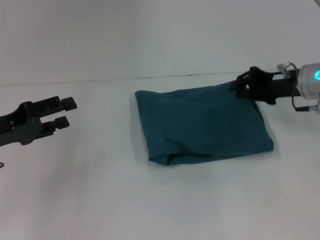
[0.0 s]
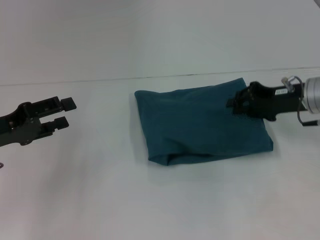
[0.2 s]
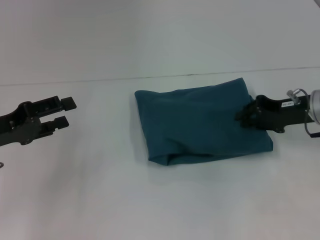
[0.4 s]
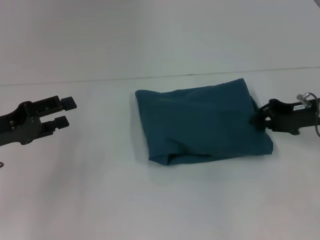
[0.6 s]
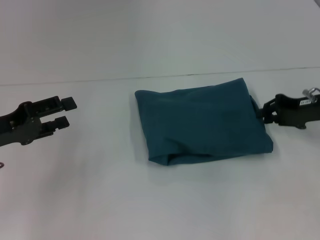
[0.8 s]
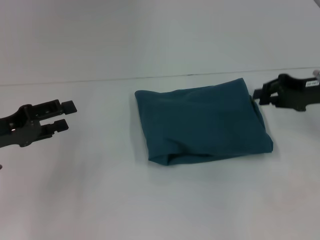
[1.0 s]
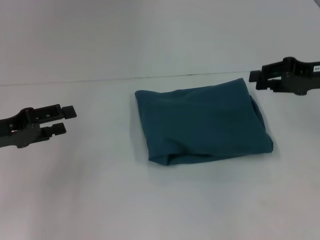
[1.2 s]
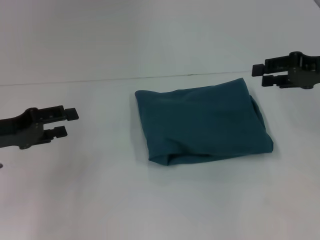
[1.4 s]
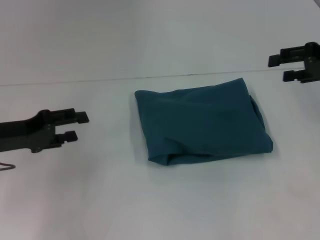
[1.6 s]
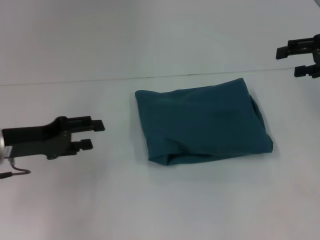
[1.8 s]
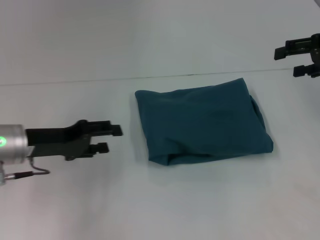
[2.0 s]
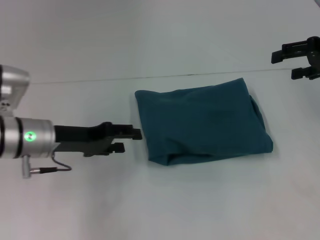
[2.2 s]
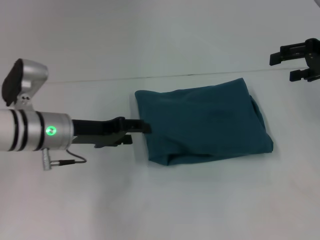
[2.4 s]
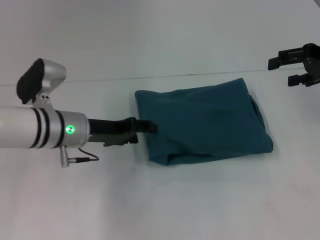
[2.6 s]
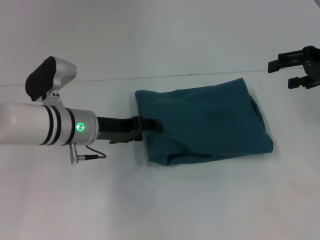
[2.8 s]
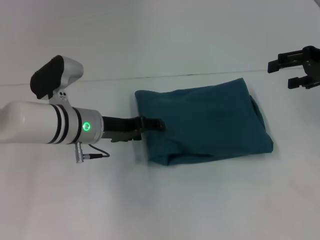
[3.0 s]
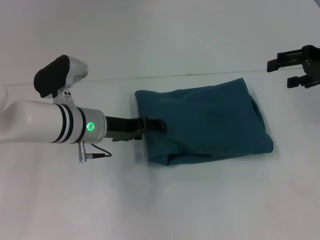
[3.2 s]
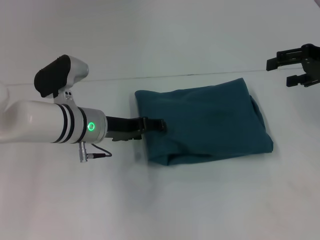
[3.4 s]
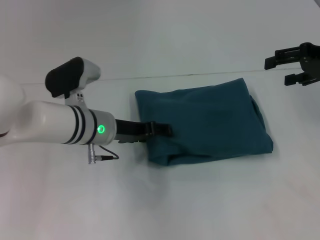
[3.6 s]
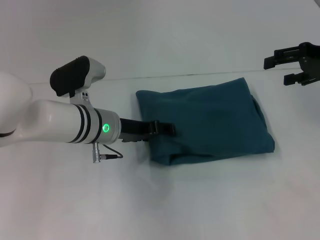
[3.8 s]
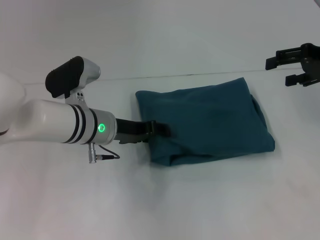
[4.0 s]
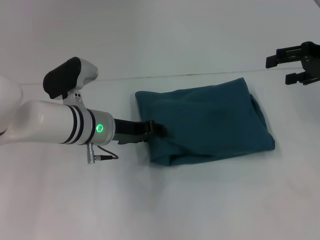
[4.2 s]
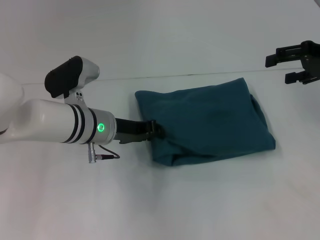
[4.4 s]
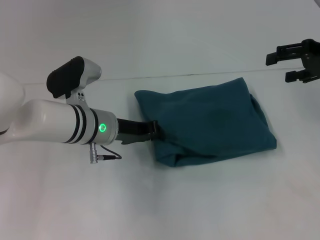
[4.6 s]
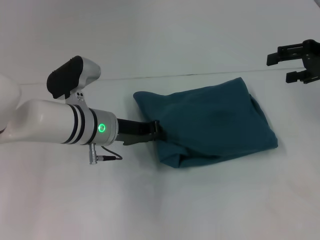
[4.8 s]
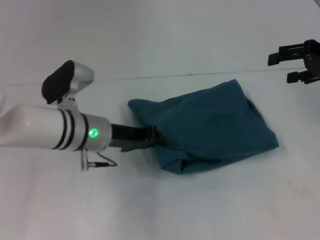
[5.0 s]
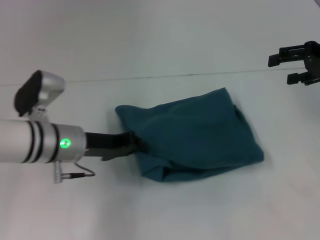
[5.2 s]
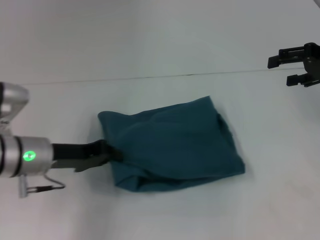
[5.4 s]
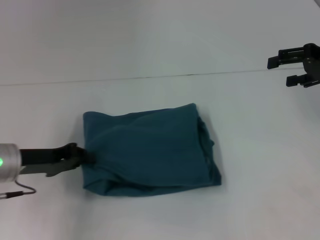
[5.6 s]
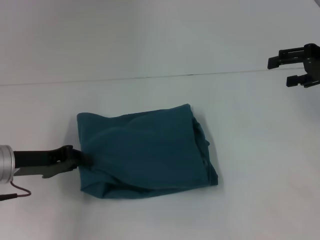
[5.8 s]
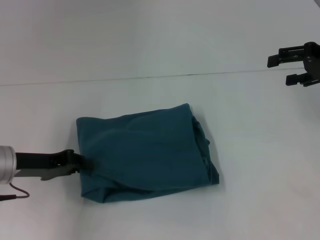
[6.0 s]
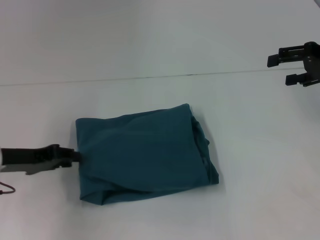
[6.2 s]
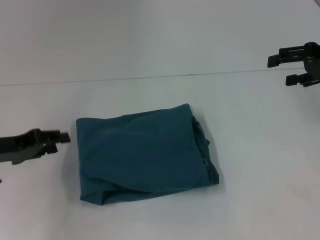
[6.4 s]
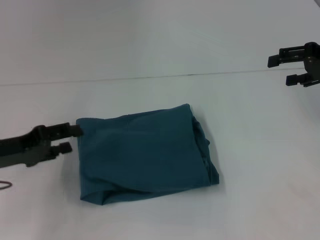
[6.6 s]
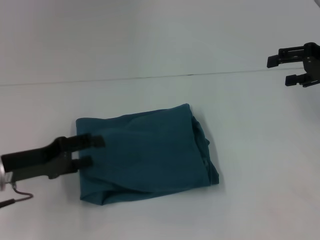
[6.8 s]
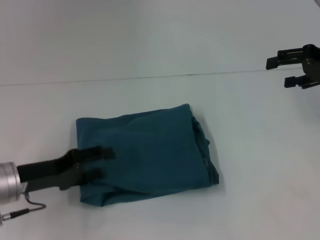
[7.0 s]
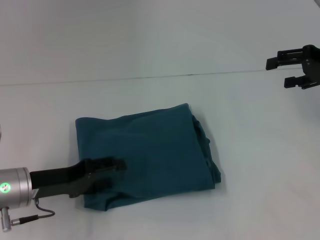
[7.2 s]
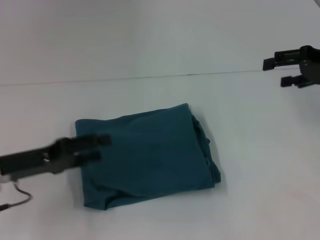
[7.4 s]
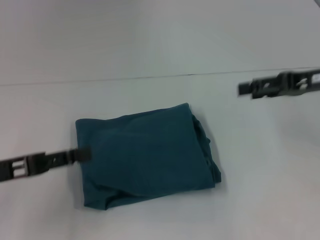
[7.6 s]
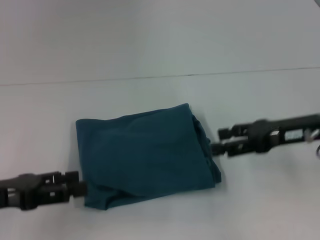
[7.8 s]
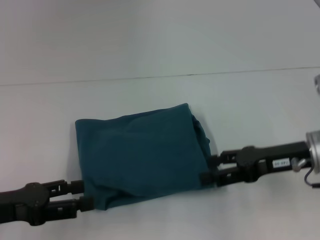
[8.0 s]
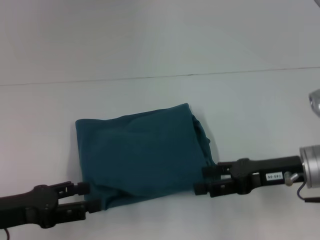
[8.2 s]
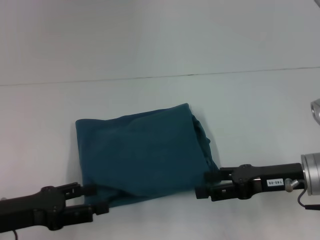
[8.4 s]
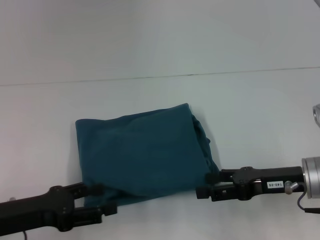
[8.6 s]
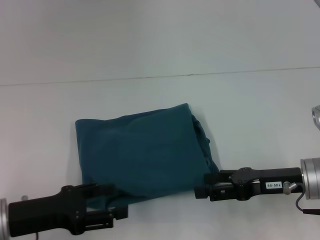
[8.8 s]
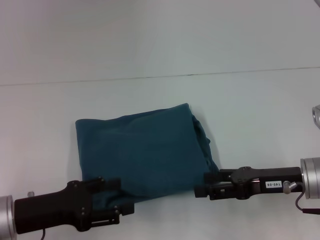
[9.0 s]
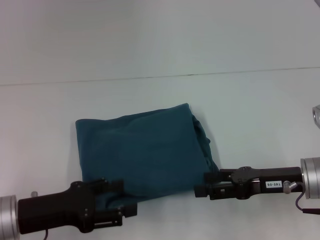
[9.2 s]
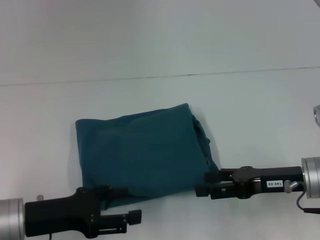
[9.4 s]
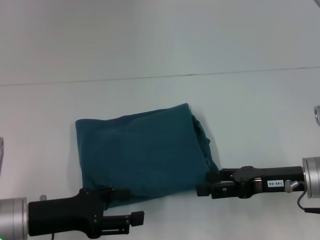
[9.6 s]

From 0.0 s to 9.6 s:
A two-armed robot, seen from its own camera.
From 0.0 s to 1.6 s: The right gripper shifts approximately 10 cm to the right and upward.
From 1.6 s to 3.2 s: The left gripper moves to the right, roughly 15 cm. The right gripper opens its fingers.
From 3.2 s to 4.8 s: The left gripper closes its fingers.
From 4.8 s to 6.4 s: The left gripper travels to the left by about 20 cm.
From 6.4 s to 8.0 s: The right gripper heads downward, to the left and backward, covering about 15 cm. The left gripper is displaced backward by some 5 cm, and opens its fingers.
From 8.0 s to 9.6 s: The left gripper heads to the right, covering about 5 cm.

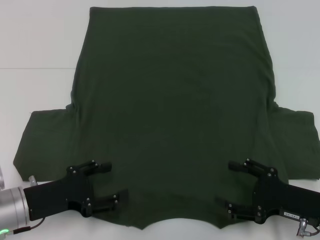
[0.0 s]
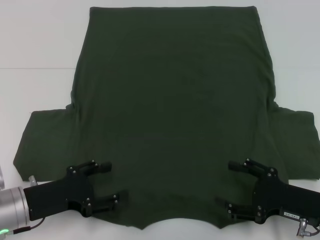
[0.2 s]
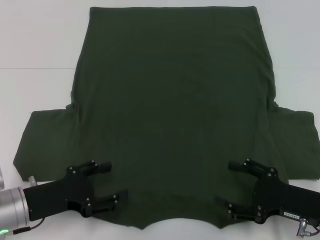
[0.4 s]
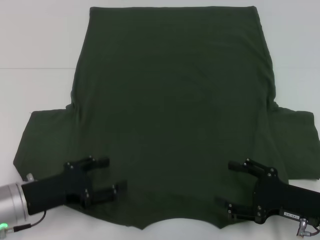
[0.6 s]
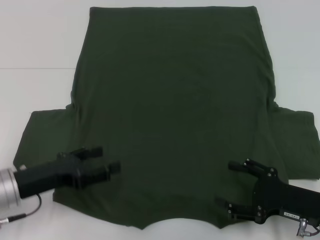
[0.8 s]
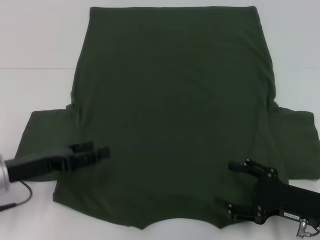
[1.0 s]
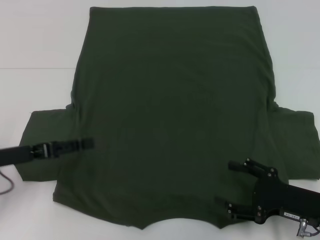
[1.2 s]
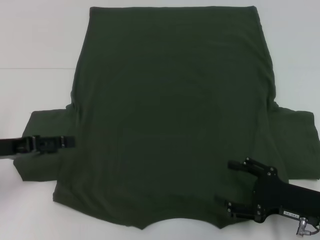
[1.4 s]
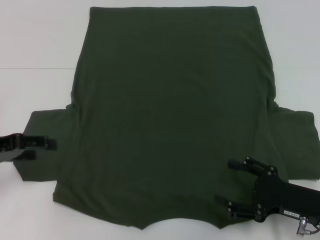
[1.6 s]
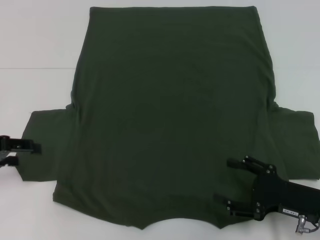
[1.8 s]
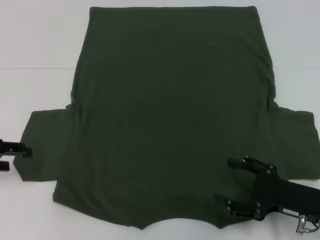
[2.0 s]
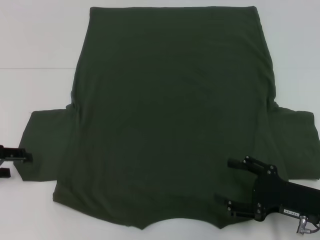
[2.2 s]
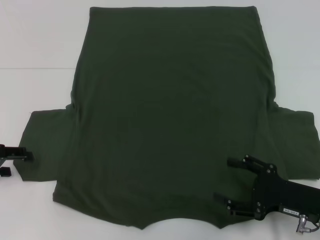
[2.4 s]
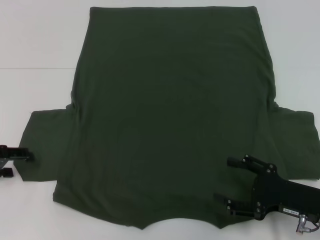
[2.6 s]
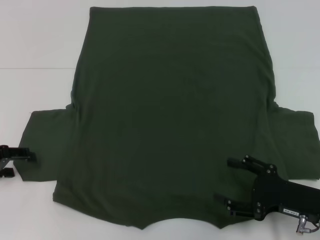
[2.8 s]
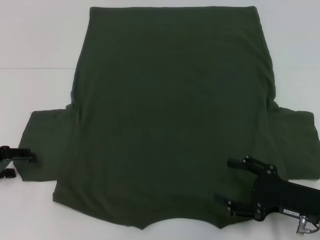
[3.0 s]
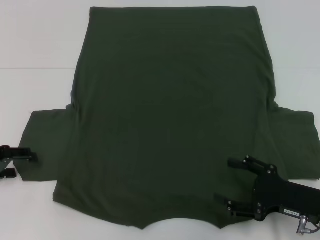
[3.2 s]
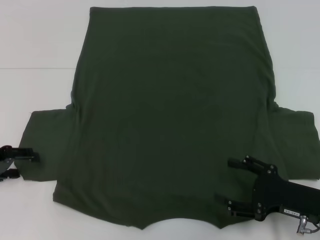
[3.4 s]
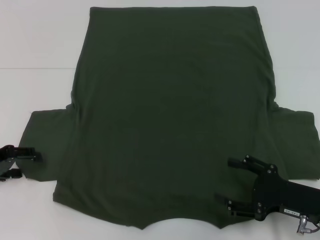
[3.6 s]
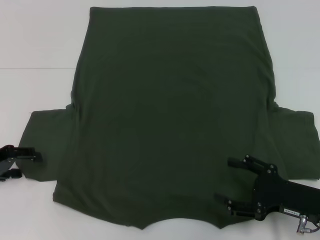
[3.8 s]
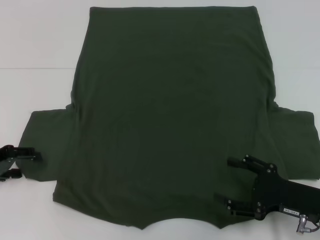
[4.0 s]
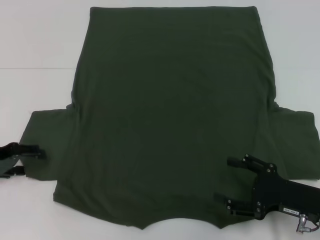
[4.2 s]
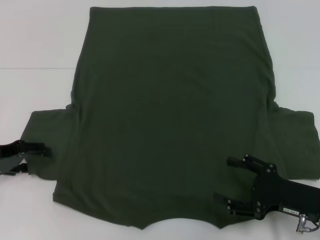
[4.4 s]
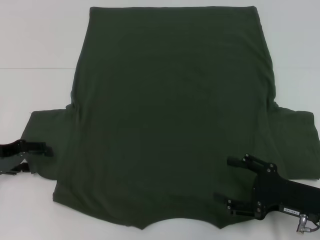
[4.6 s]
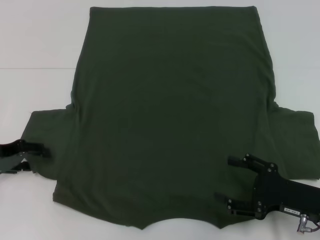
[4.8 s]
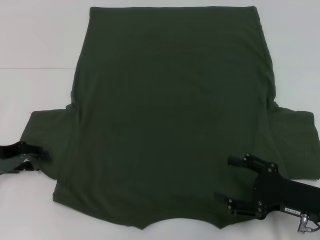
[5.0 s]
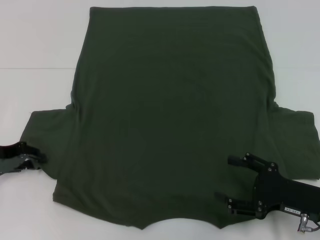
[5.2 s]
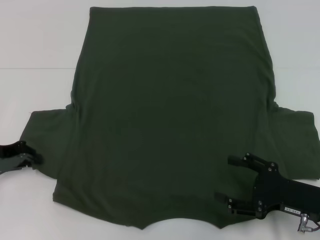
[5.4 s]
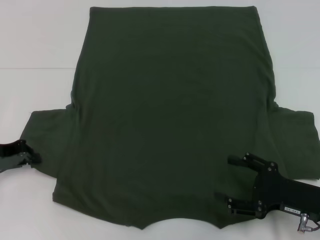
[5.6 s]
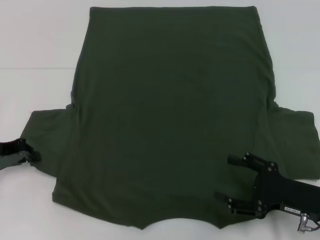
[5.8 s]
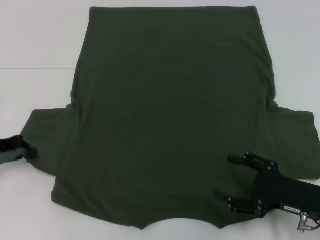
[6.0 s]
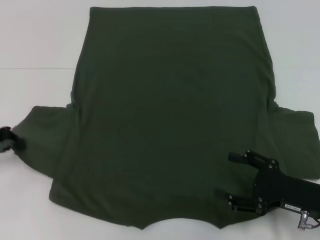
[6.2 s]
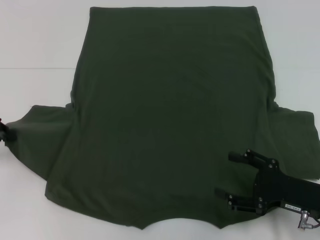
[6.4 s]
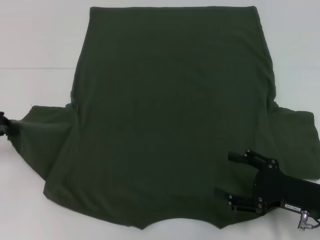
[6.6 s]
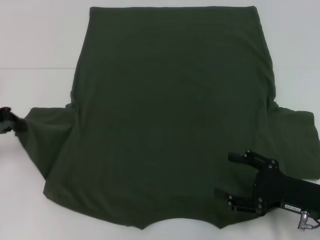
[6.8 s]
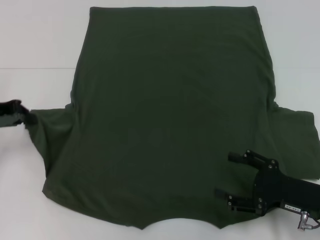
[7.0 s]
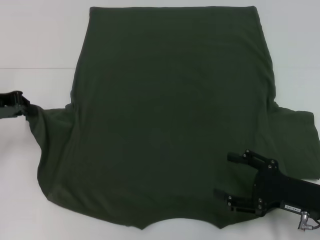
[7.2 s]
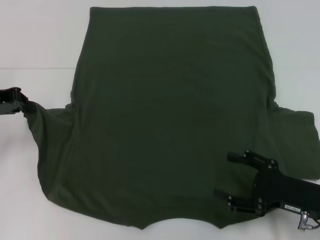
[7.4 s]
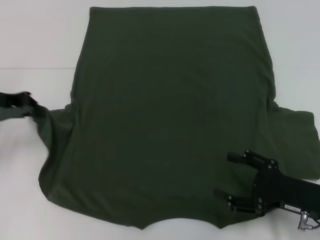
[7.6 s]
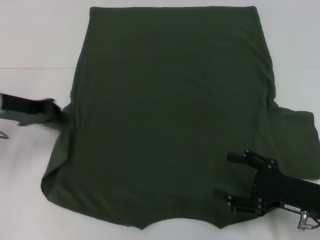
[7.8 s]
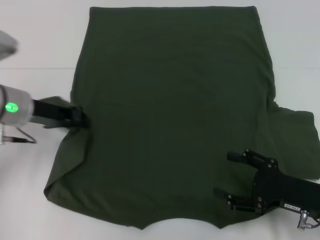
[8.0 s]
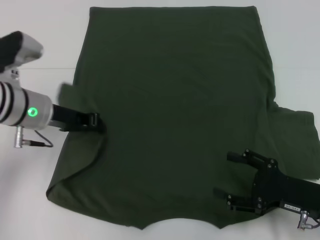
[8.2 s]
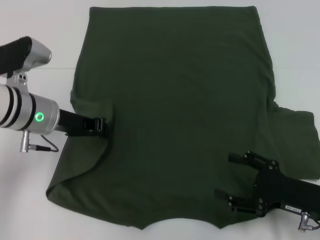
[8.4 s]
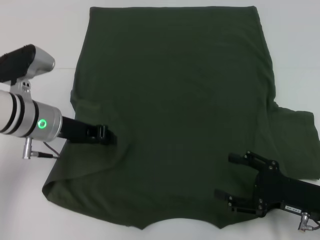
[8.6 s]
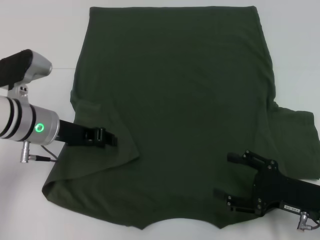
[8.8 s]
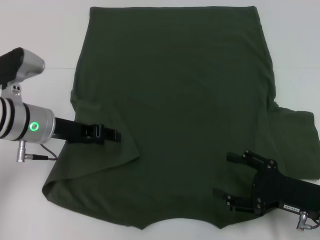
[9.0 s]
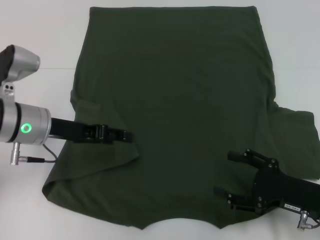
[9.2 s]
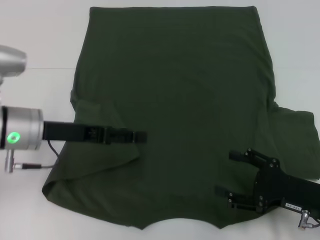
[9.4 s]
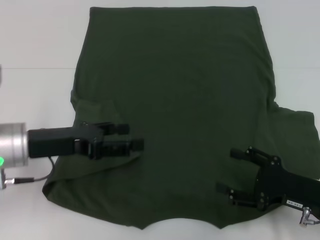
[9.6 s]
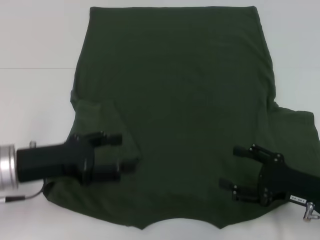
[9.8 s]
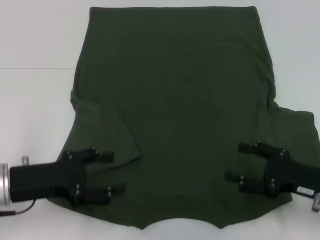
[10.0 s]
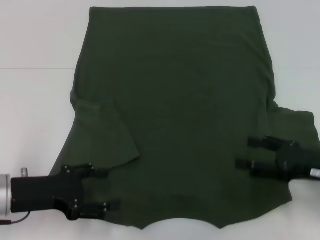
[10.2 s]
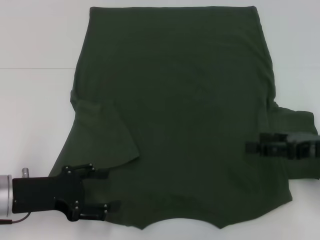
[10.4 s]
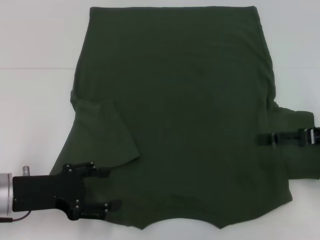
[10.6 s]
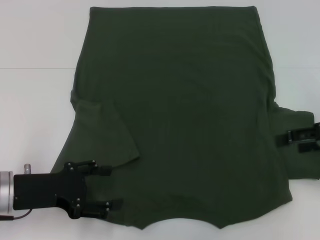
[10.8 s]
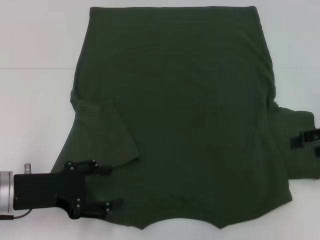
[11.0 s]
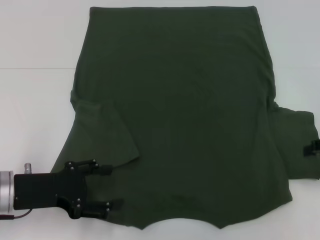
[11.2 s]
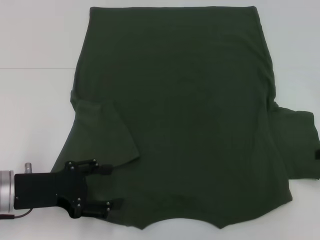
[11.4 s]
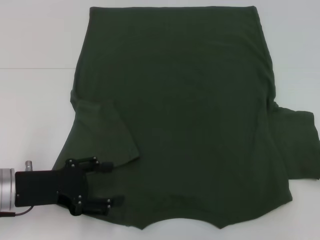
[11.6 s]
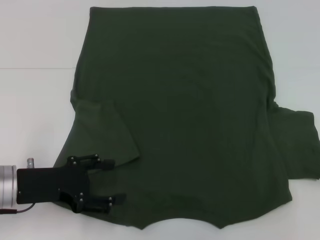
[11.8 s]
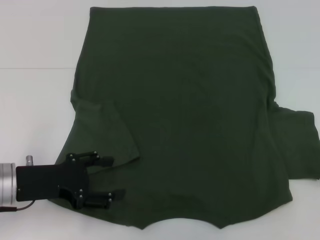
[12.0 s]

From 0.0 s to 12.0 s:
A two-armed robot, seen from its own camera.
Step, from 0.0 s to 8.6 s: Fold the bottom left sleeve with your left hand.
From 0.0 s to 1.6 s: The left gripper shifts about 15 cm upward, to the left and forward.
From 1.6 s to 4.4 s: The grippers make only small movements.
From 4.4 s to 6.0 s: The left gripper closes its fingers.
From 6.0 s to 7.6 s: The left gripper moves upward, about 5 cm.
From 7.6 s to 9.0 s: The left gripper shifts about 10 cm to the right.
From 9.0 s to 10.4 s: The right gripper shifts about 10 cm upward and forward; the left gripper shifts about 10 cm backward, and opens its fingers.
From 10.4 s to 12.0 s: The right gripper heads to the right and backward, covering roughly 10 cm.

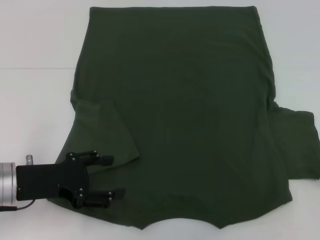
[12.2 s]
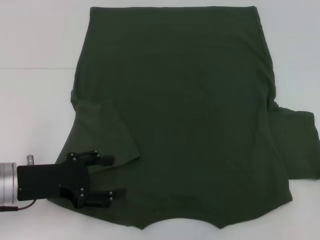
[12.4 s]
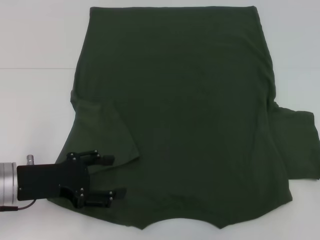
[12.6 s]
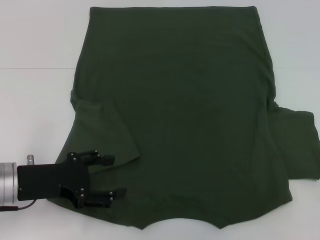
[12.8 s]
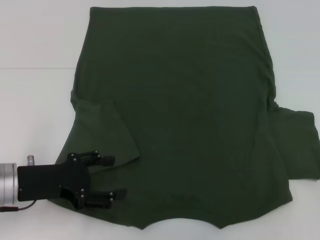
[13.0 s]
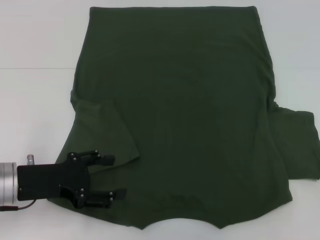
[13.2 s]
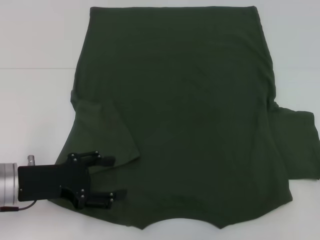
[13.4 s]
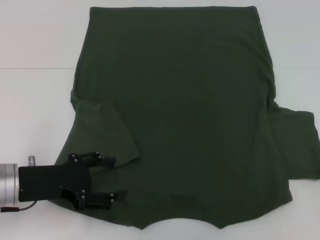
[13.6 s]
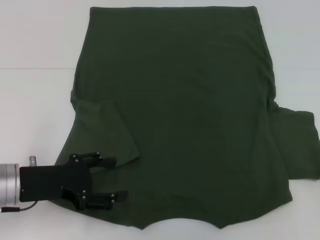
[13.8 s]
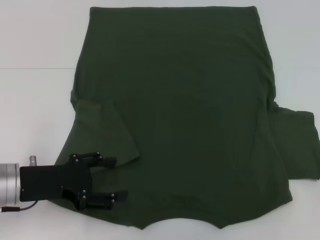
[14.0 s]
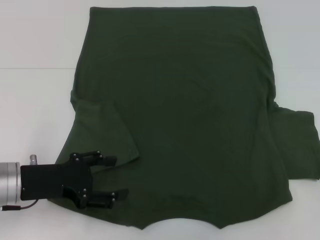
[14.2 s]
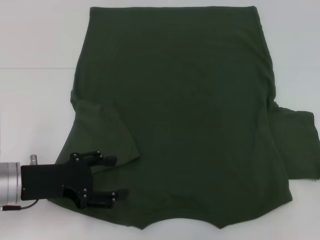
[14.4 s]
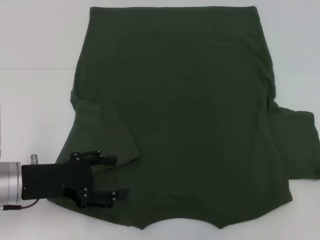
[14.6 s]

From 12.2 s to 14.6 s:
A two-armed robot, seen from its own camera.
From 13.4 s to 14.6 s: The grippers move only a little.
